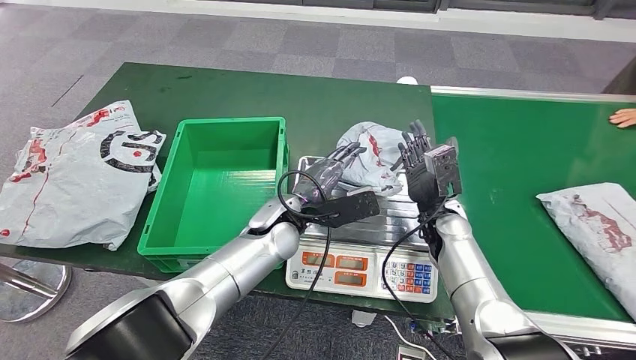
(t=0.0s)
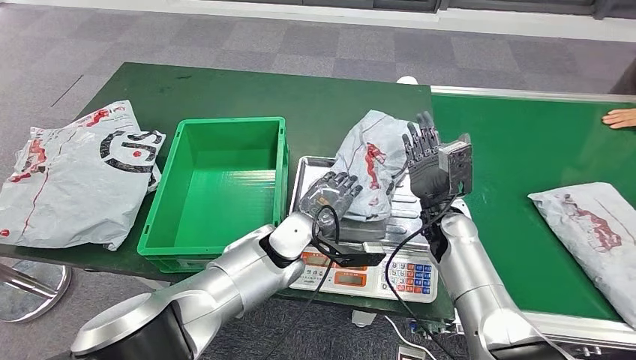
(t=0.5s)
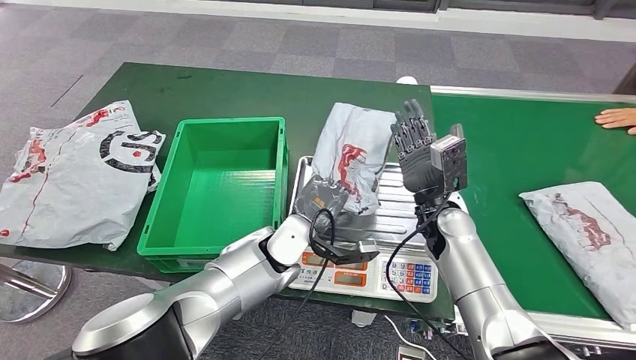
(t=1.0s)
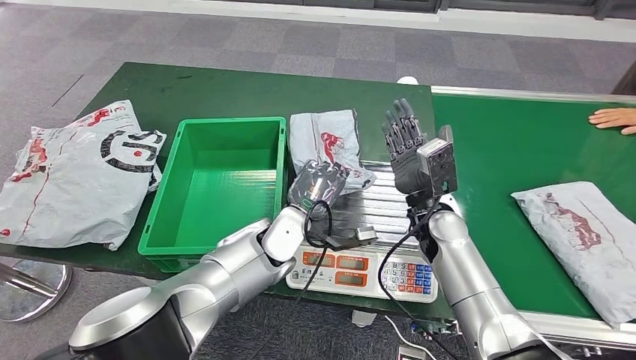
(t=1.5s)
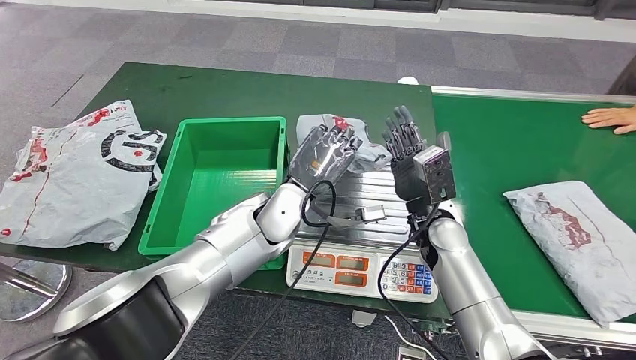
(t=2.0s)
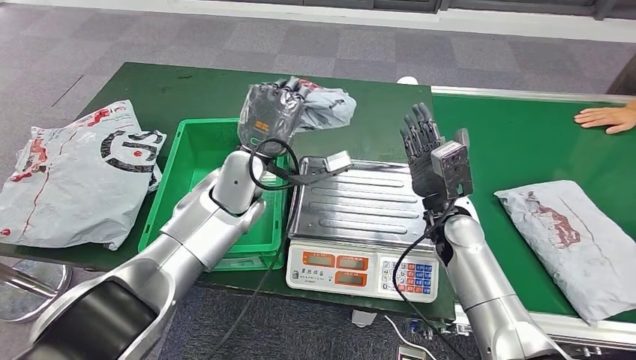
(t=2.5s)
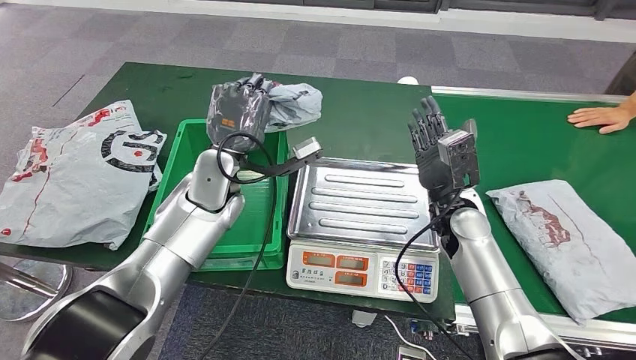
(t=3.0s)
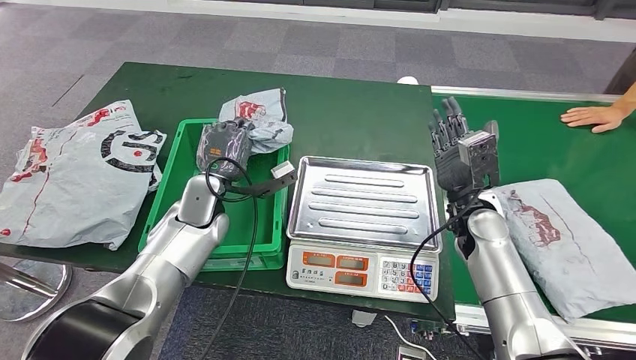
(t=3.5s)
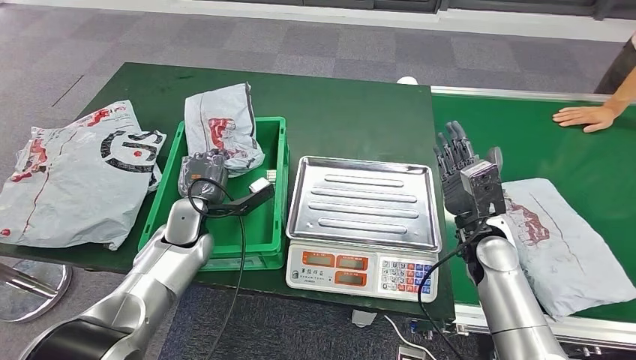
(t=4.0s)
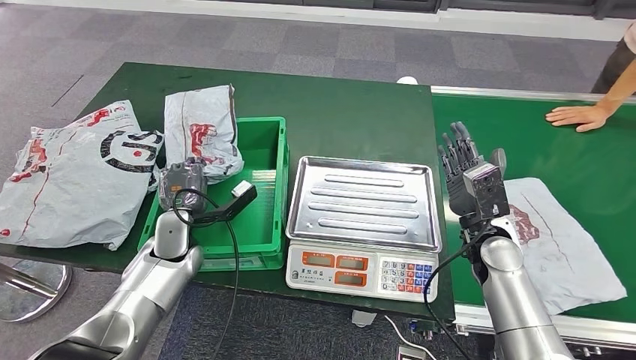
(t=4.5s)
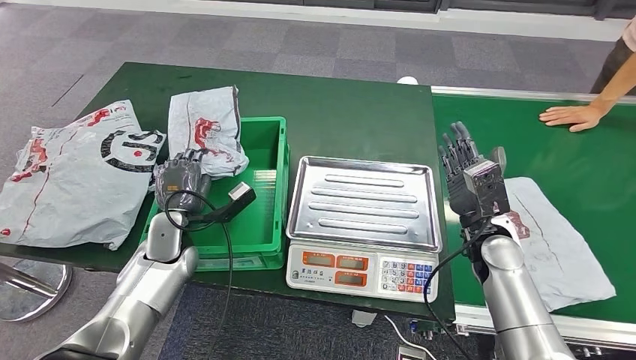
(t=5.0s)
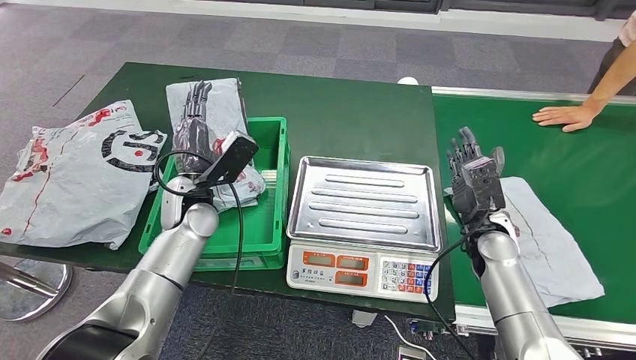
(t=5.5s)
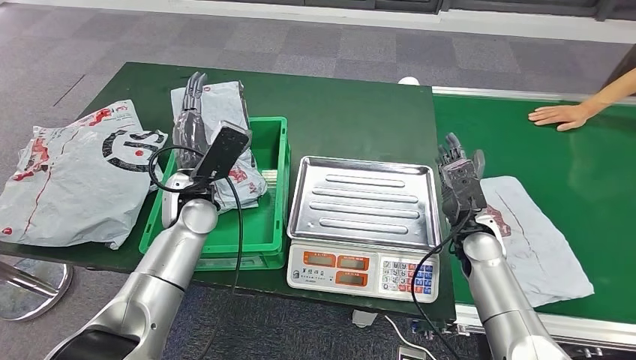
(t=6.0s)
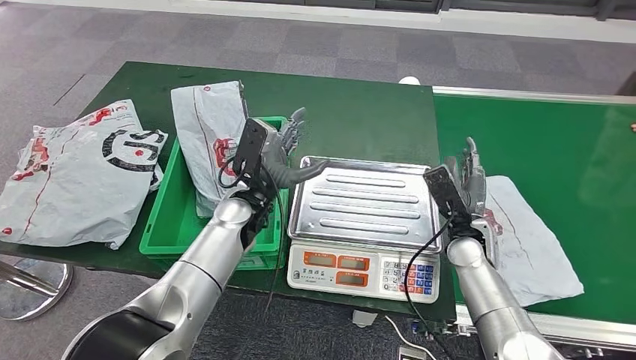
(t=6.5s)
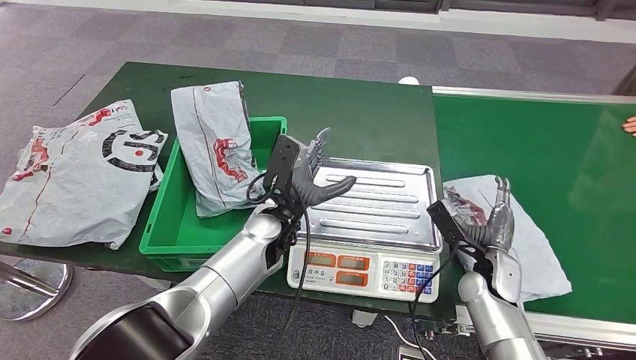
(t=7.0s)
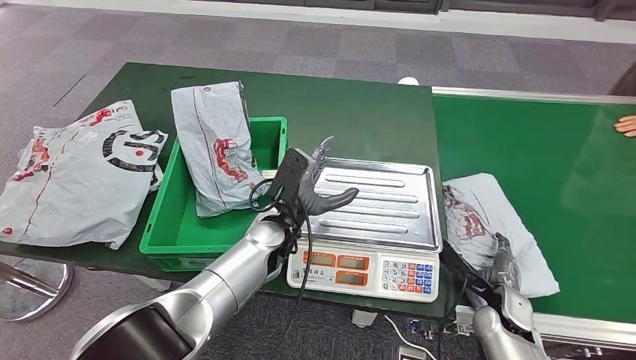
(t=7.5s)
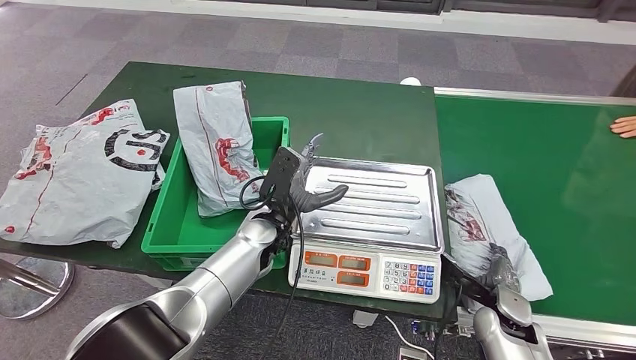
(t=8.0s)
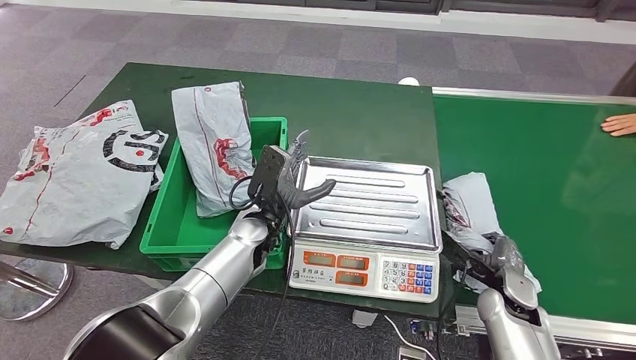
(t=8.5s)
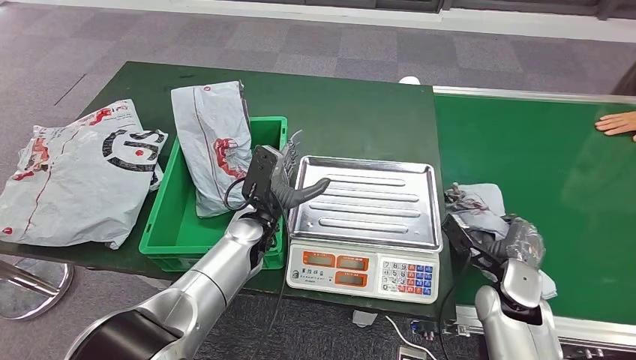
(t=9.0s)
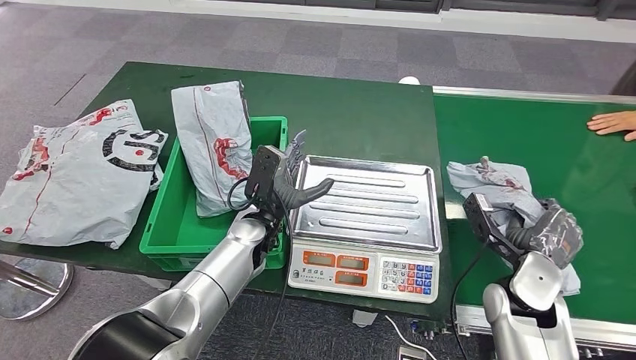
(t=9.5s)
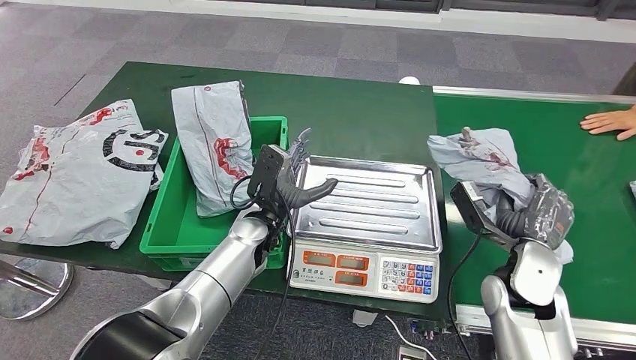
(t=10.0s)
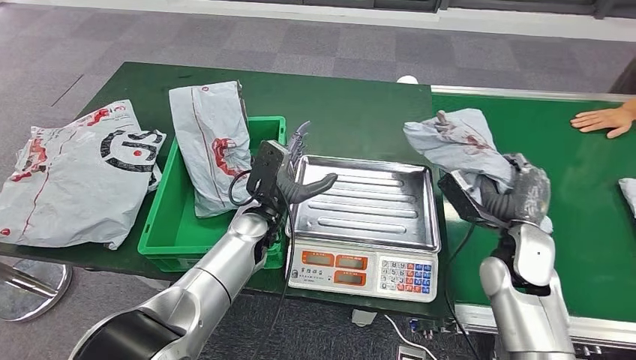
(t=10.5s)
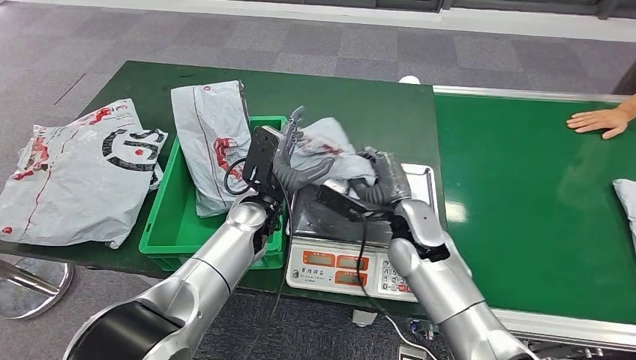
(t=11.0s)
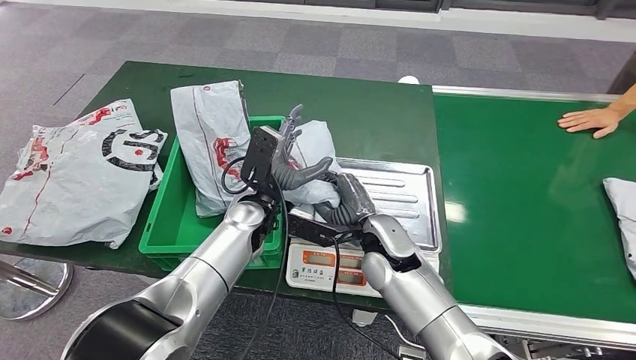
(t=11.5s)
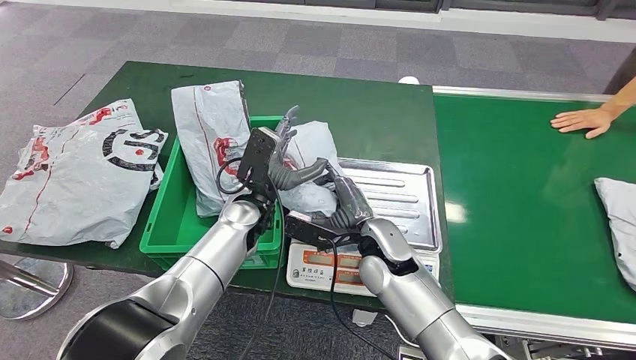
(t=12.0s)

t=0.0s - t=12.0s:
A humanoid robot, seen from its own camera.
Step, t=0.0s - t=2.5s: Pick up the parcel from the inbound machine.
Step, t=3.0s - t=6.0s: Put the parcel inside the courier box.
Step, t=6.5s - t=9.5s: Pick up the parcel from the conveyor belt.

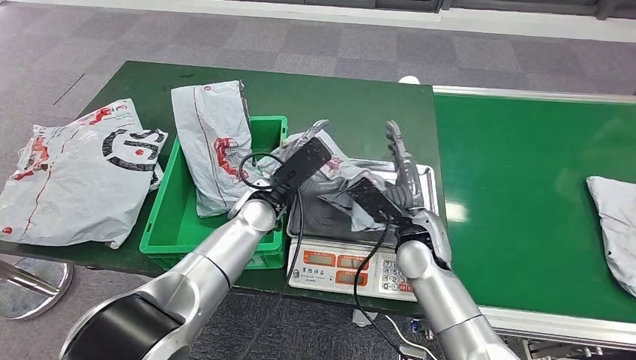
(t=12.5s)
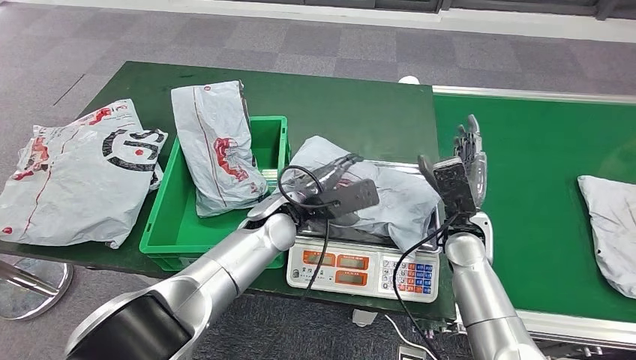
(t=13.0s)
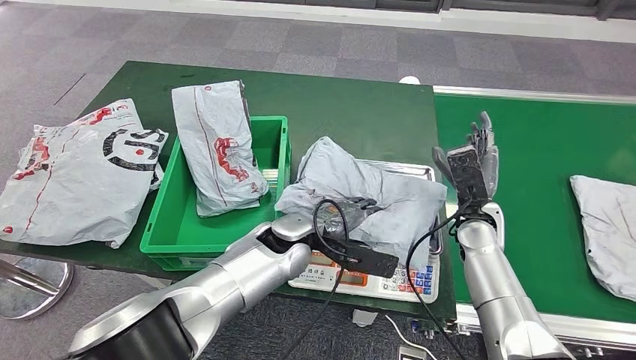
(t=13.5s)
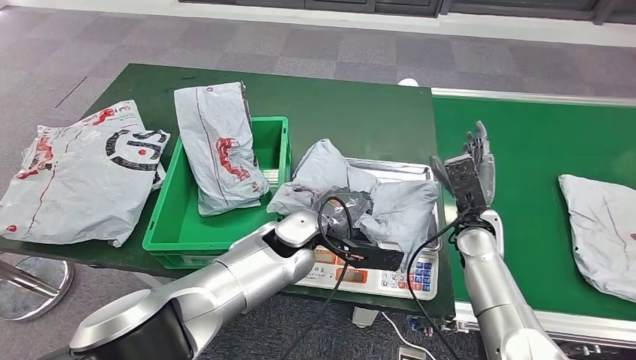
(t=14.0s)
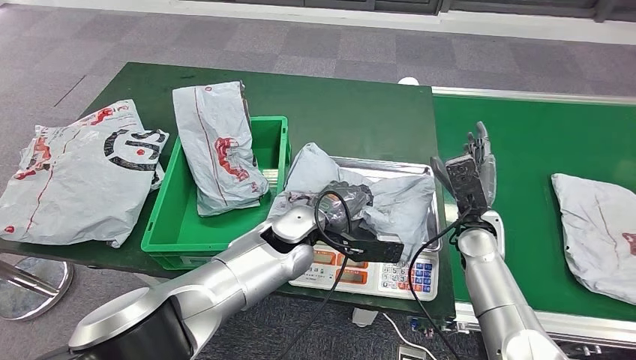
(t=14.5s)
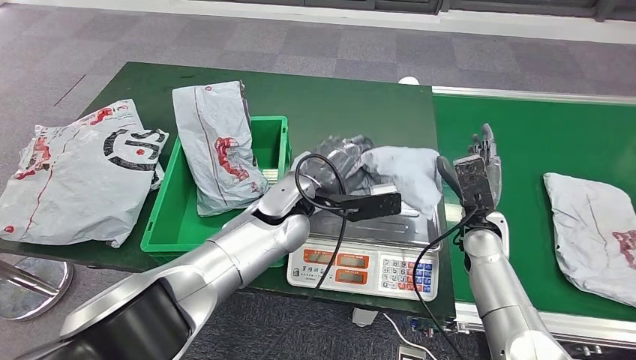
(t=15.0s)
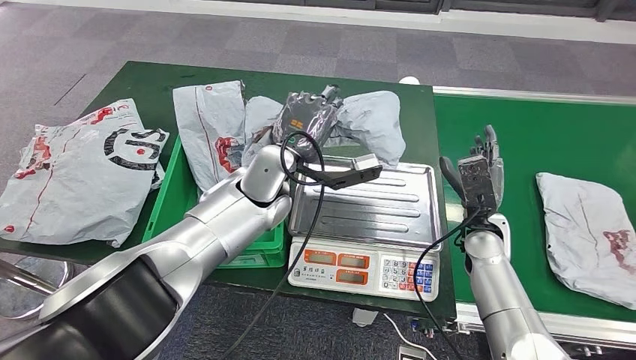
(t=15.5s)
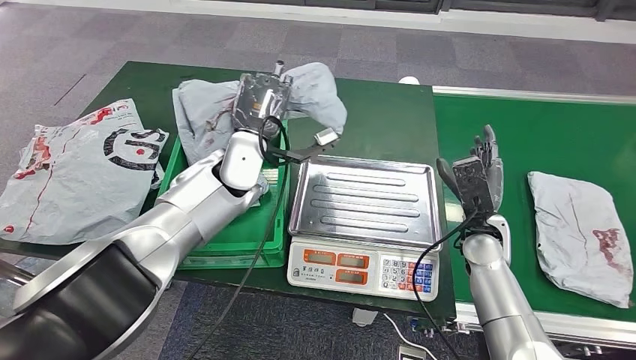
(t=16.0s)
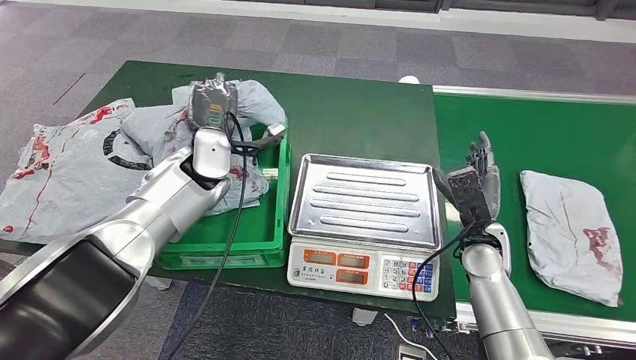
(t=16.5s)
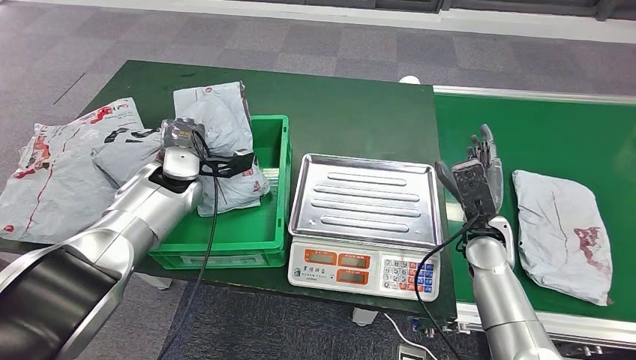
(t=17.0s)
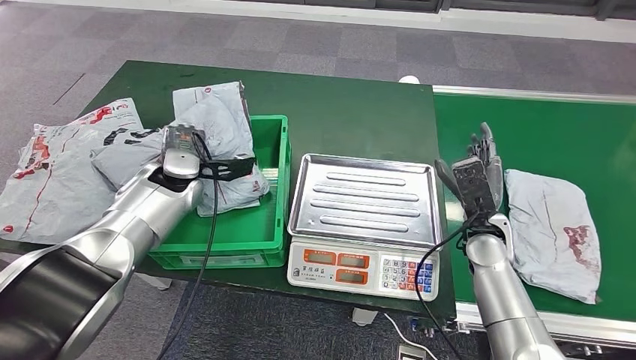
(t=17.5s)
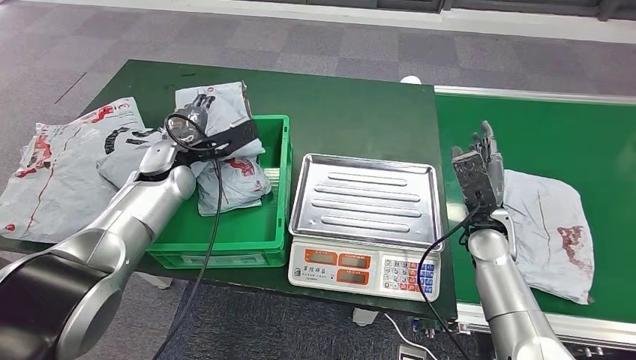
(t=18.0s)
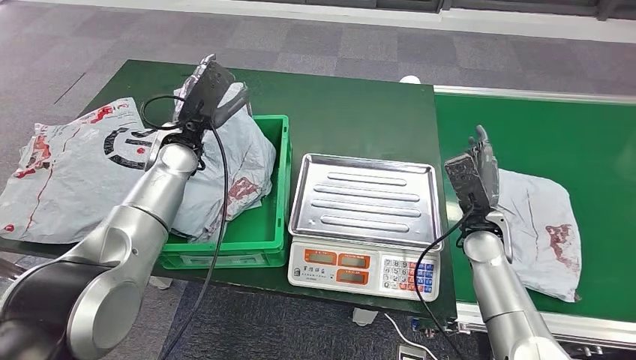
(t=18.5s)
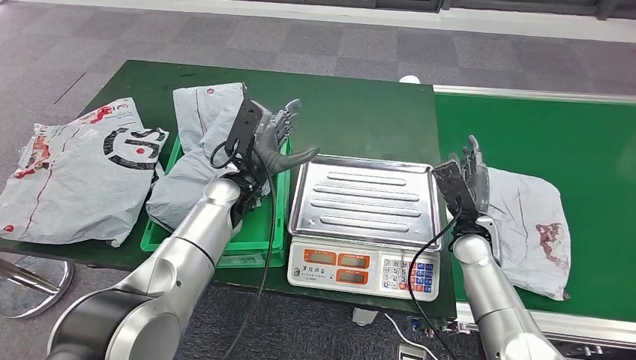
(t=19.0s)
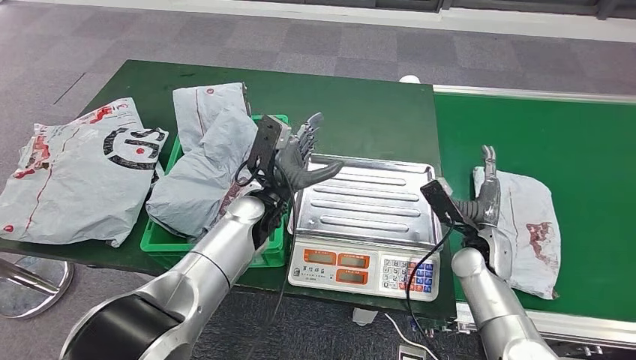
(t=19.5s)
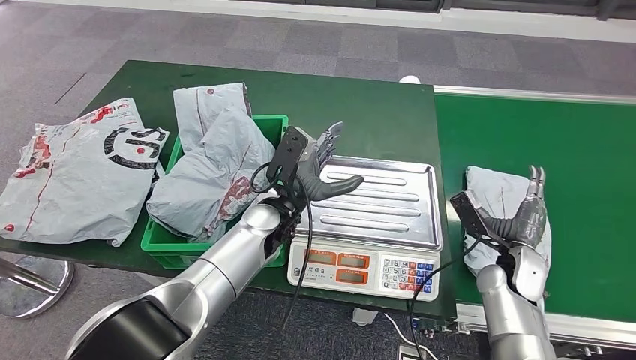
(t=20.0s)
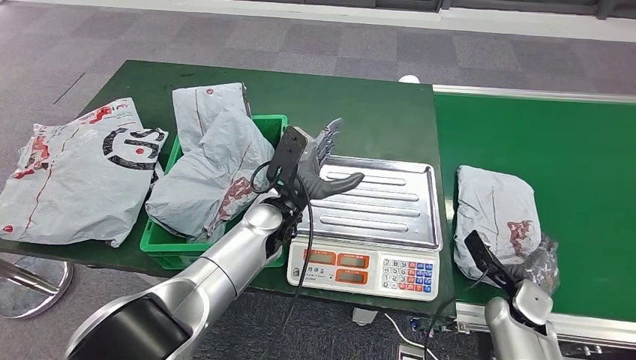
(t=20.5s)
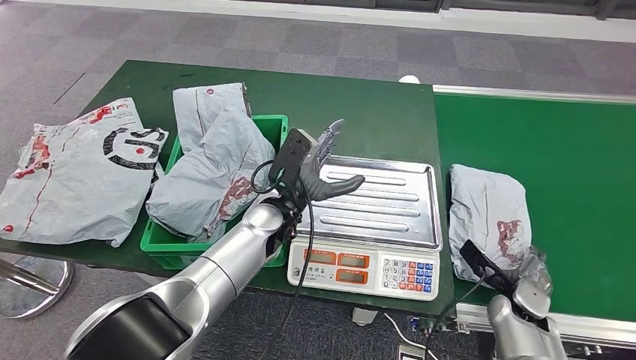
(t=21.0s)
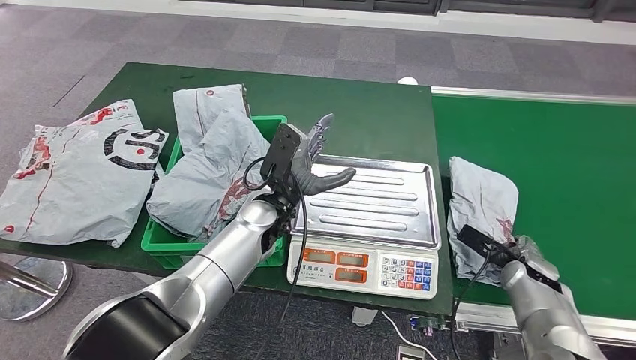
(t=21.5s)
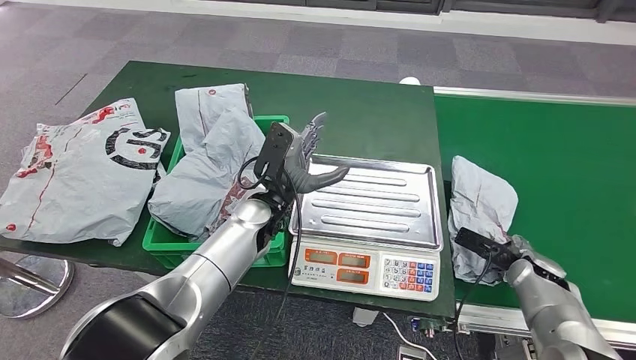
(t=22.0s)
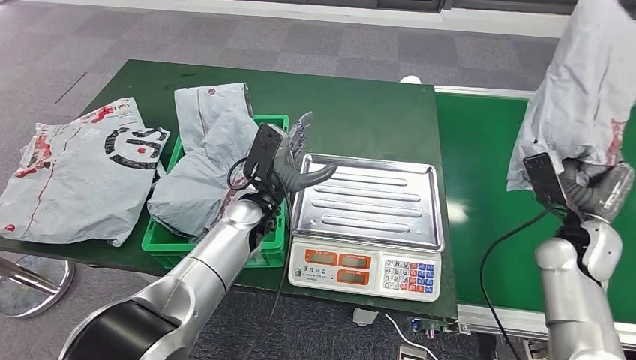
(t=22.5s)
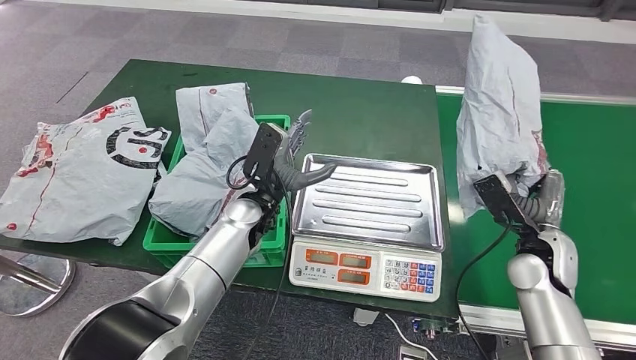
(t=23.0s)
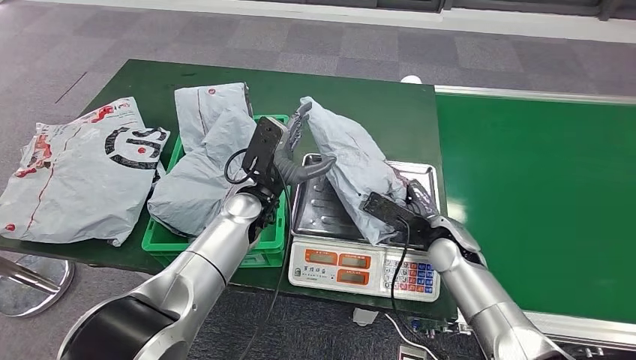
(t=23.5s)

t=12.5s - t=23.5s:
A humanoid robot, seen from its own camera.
Step, t=13.0s - t=15.5s: Pick up the parcel from the inbound machine.
Step, t=16.0s - t=18.5s: Place the parcel into the delivery box.
Step, t=19.0s - t=22.5s: Pick up the parcel from the conveyor belt.
t=20.0s - t=21.5s: The right hand travels to the right by about 5 cm.
